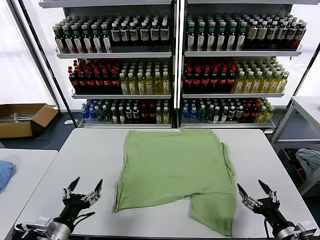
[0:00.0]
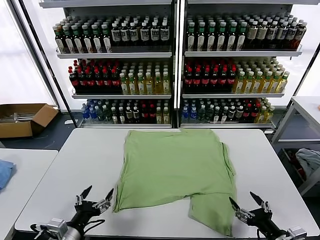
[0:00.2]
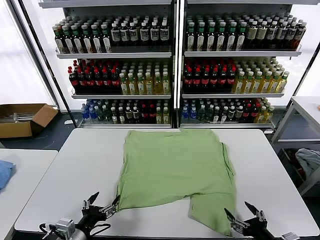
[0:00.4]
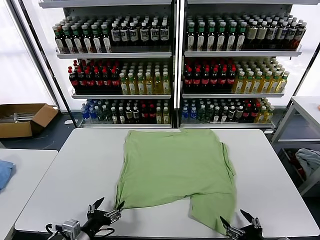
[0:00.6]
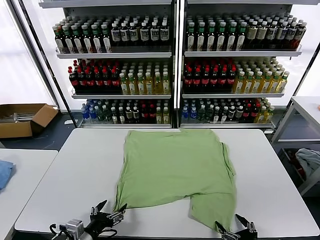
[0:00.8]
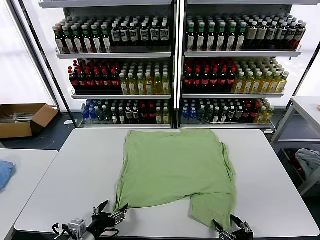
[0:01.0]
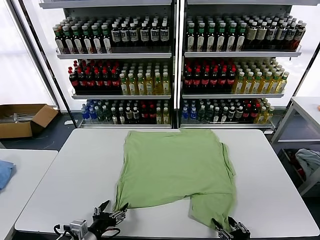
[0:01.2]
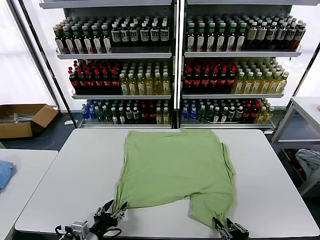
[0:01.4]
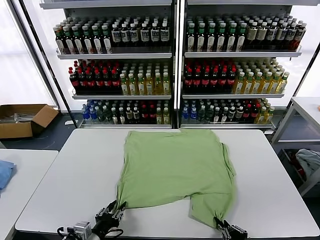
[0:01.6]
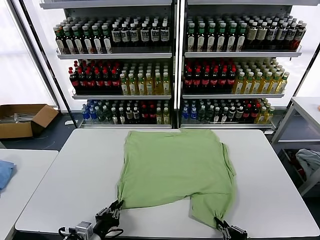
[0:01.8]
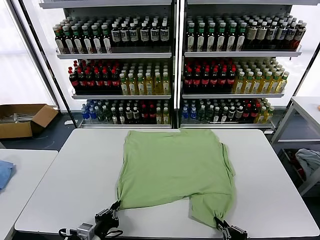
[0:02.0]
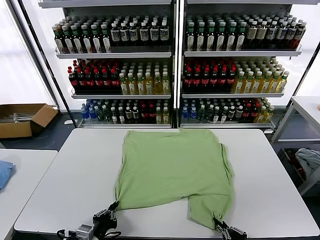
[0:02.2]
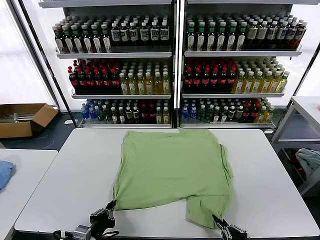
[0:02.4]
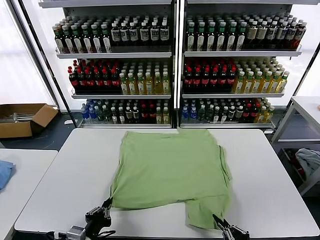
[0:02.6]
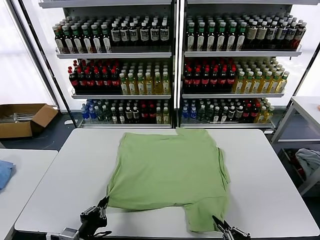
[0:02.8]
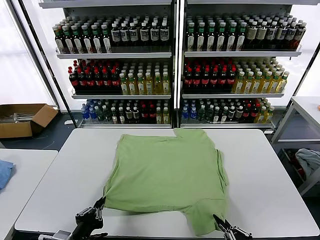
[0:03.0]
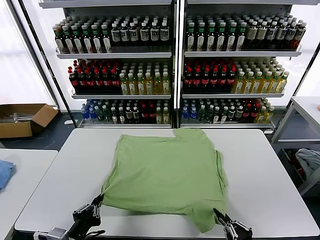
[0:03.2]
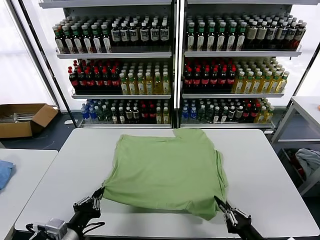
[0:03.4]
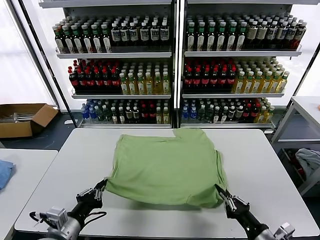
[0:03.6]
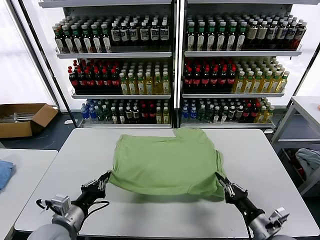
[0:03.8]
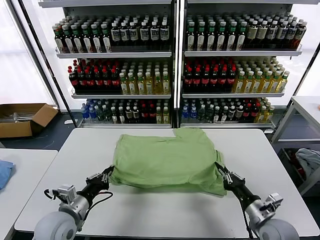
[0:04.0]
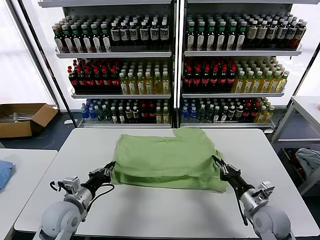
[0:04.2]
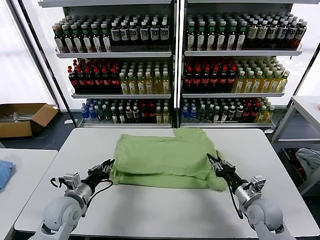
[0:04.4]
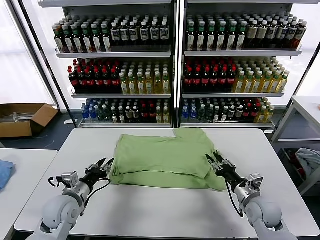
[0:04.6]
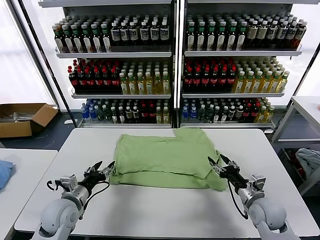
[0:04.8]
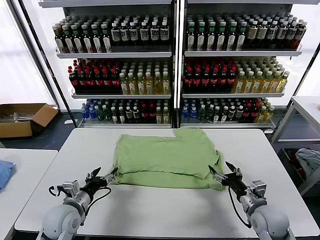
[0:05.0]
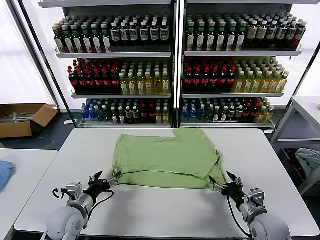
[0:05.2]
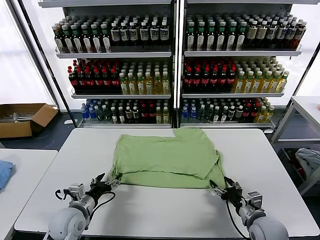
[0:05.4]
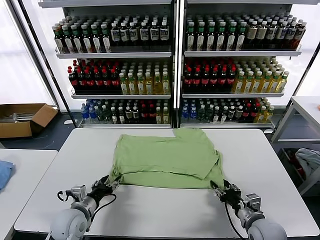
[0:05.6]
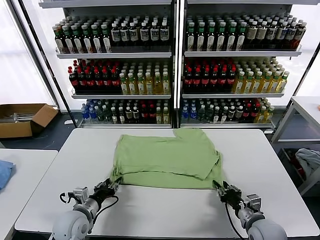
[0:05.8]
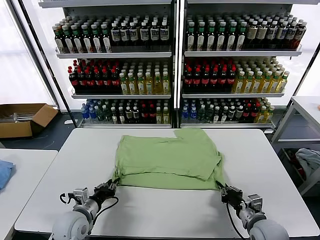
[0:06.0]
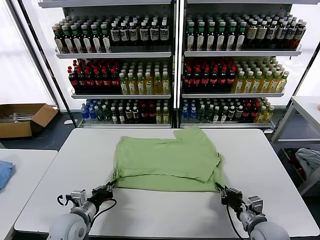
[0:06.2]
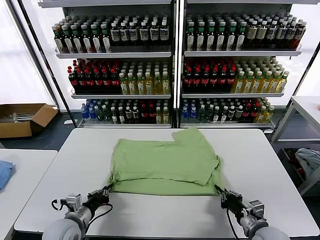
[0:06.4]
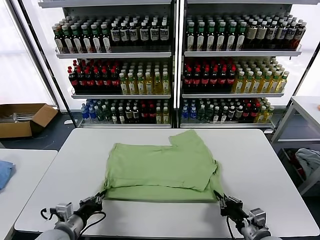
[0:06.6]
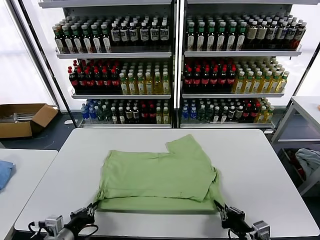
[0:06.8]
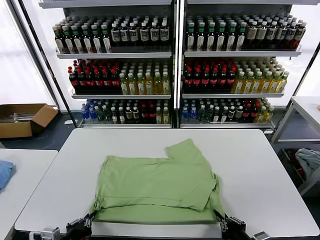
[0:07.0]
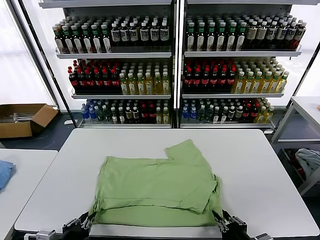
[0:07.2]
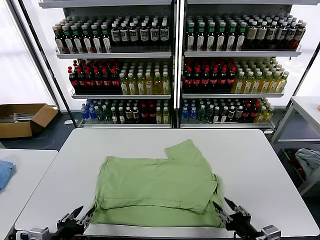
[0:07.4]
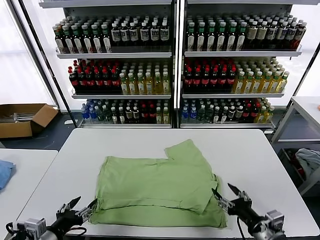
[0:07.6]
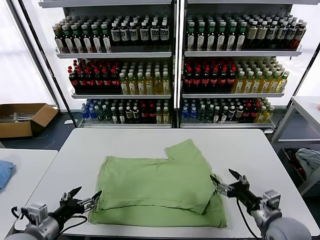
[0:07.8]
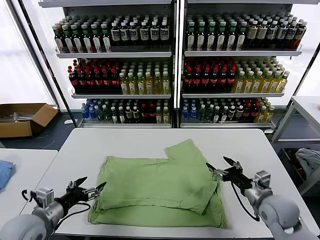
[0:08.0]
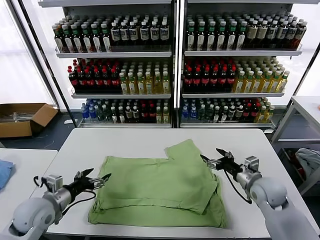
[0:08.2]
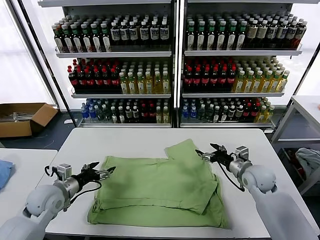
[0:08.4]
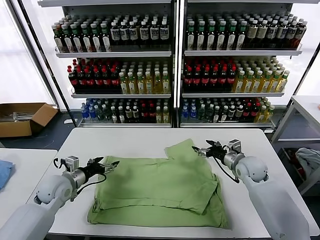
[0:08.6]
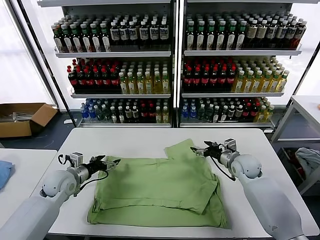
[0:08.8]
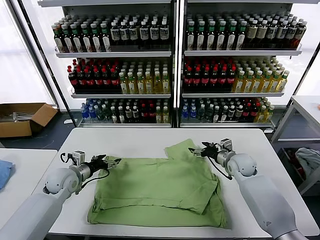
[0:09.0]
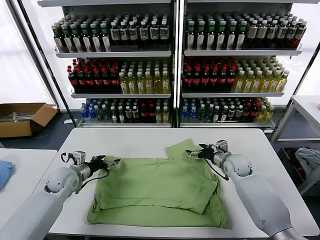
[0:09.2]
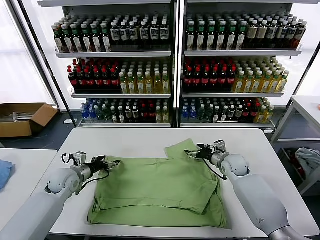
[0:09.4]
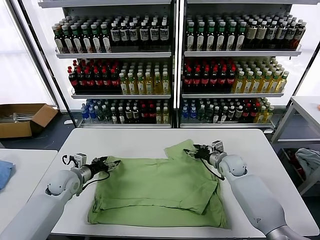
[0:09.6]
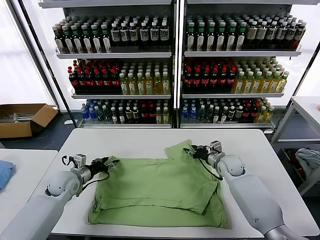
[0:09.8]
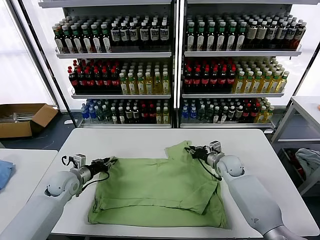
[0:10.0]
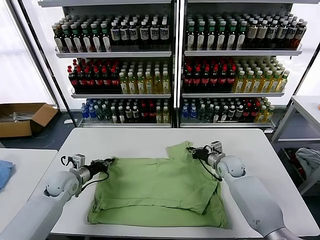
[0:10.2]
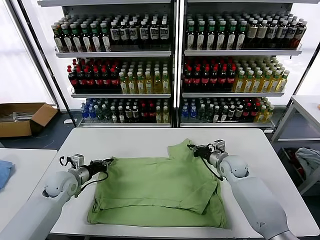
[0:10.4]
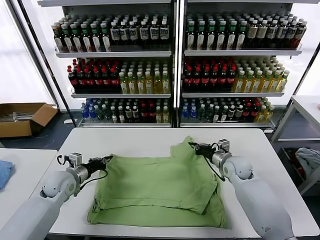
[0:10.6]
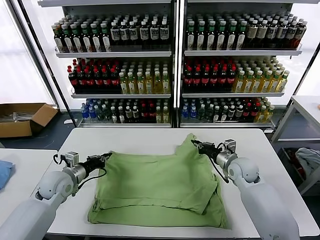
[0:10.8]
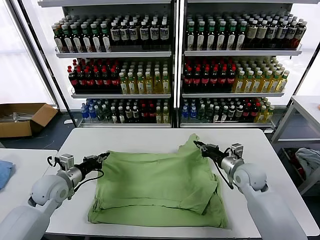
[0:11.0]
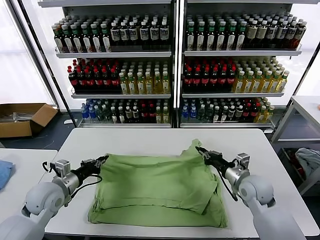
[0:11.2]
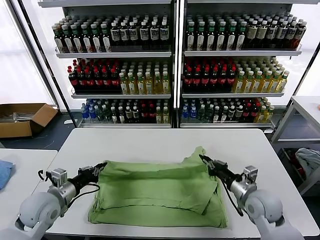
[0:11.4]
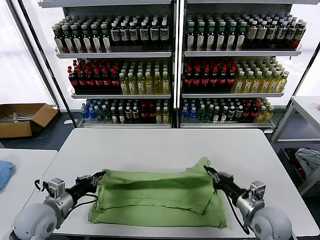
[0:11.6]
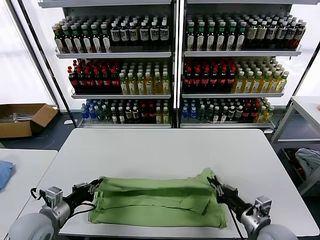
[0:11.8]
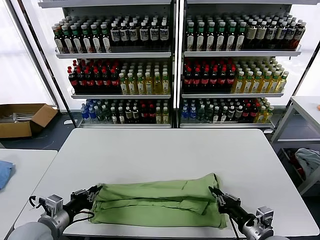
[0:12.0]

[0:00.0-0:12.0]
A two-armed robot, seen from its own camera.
Task of the whole recording: fold and organize the clothes.
Step, 0:00.0 to 0:02.0: use both grippers simultaneously to clamp the lower edge of the clothing fabric.
Step, 0:02.2 to 0:04.8: use both grippers to drag the lower edge of the fabric forward and fold it over the upper edge.
Step, 0:05.0 to 0:07.2: Drag the clothes downward with both gripper.
Step, 0:07.6 to 0:10.2: use both grippers simultaneously to clamp the upper edge of the clothing fabric.
0:01.6 to 0:03.0: The left gripper is displaced upward by some 5 cm, and closes its fingers.
0:03.0 to 0:04.4: The grippers both shift forward by some 20 cm. The right gripper opens its fingers.
0:04.4 to 0:06.0: The right gripper moves backward, about 5 cm, and opens, then closes once more; the left gripper changes place by approximately 5 cm, and opens, then closes once more.
0:06.0 to 0:07.6: The left gripper travels backward and upward by roughly 15 cm, and opens. The right gripper goes approximately 5 cm upward, travels backward and back again, some 10 cm each way, and opens its fingers.
0:07.6 to 0:09.0: Both grippers move forward, about 25 cm.
0:09.0 to 0:10.4: The right gripper closes its fingers; the left gripper closes up.
0:10.4 to 0:12.0: The right gripper is displaced backward by some 30 cm; the left gripper travels backward by about 20 cm.

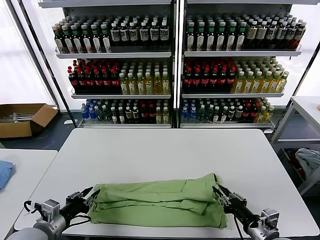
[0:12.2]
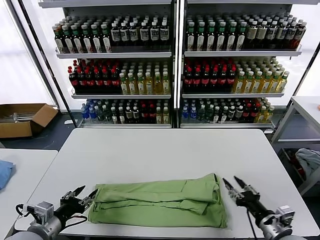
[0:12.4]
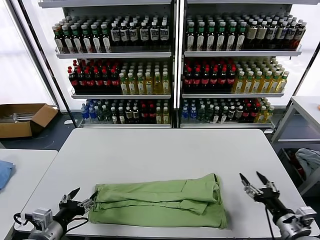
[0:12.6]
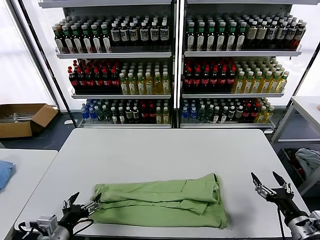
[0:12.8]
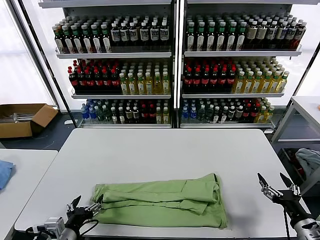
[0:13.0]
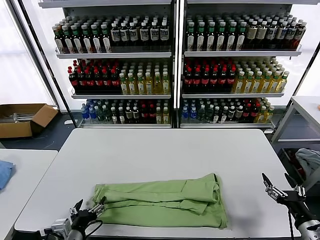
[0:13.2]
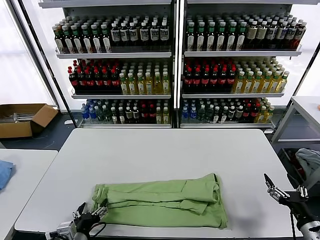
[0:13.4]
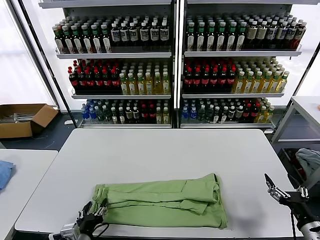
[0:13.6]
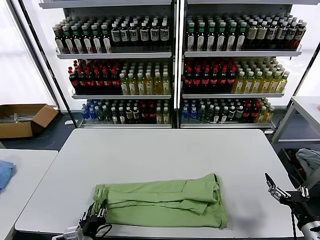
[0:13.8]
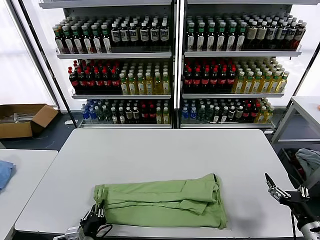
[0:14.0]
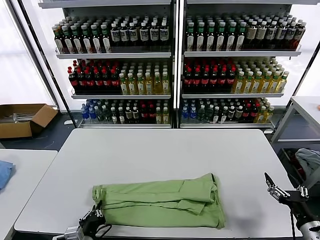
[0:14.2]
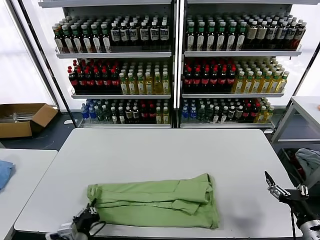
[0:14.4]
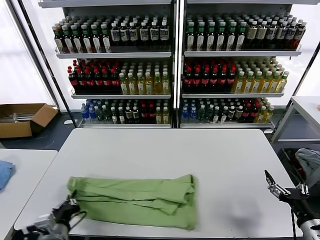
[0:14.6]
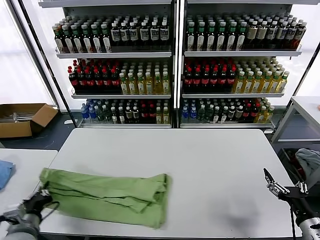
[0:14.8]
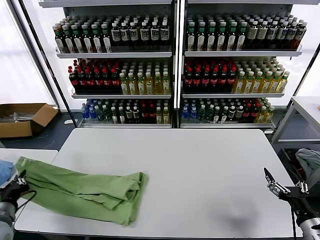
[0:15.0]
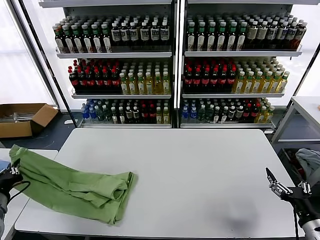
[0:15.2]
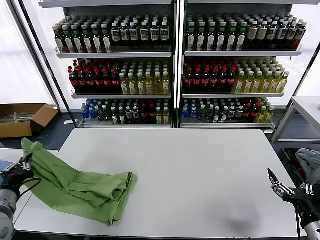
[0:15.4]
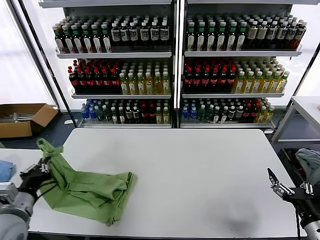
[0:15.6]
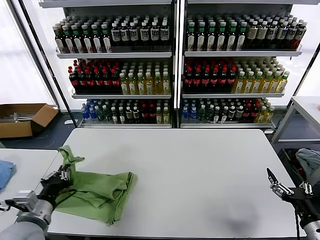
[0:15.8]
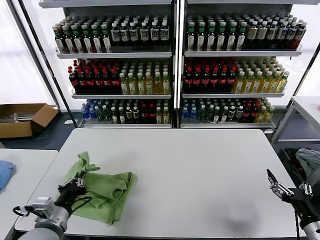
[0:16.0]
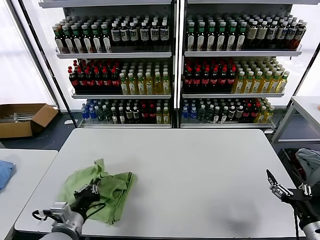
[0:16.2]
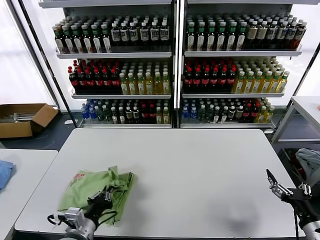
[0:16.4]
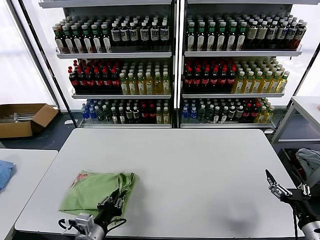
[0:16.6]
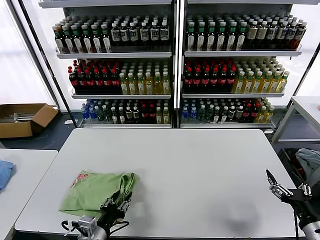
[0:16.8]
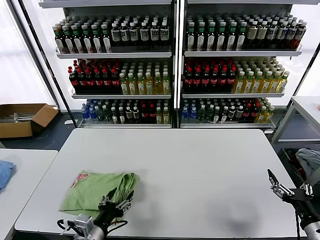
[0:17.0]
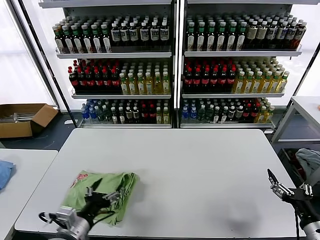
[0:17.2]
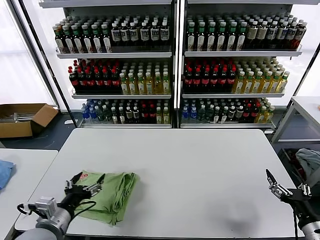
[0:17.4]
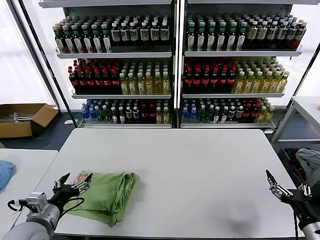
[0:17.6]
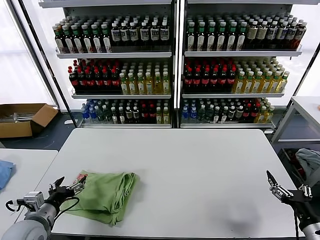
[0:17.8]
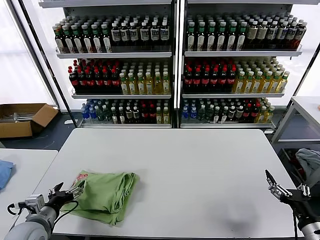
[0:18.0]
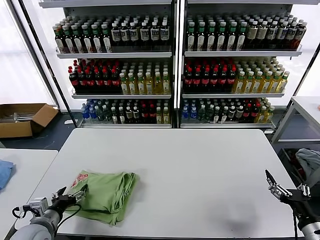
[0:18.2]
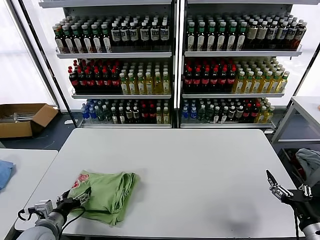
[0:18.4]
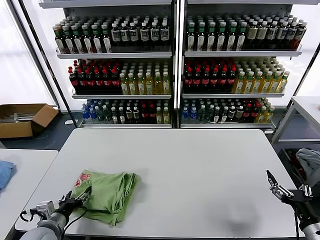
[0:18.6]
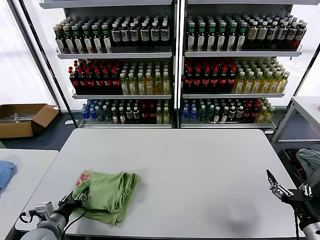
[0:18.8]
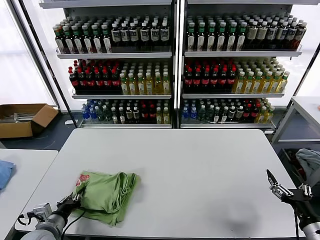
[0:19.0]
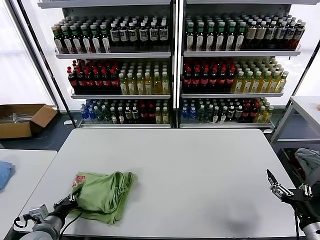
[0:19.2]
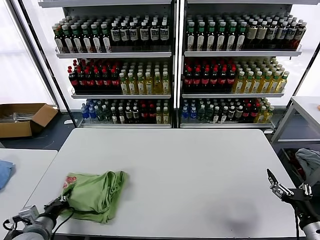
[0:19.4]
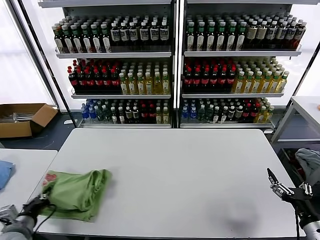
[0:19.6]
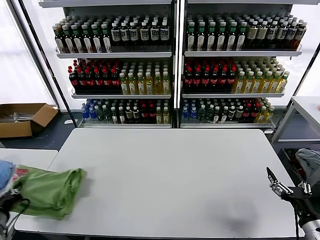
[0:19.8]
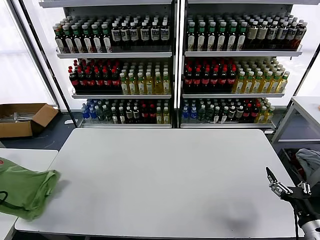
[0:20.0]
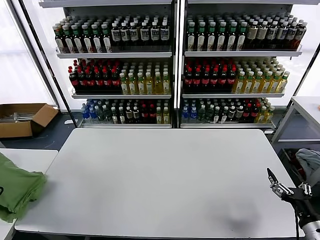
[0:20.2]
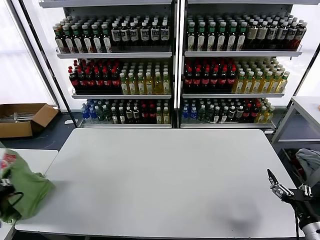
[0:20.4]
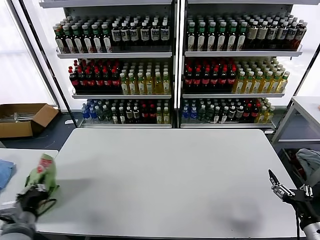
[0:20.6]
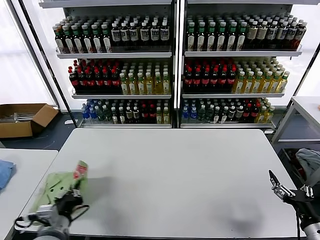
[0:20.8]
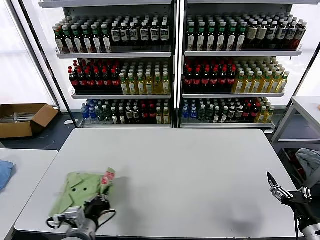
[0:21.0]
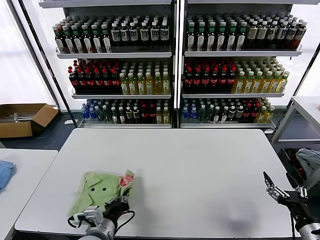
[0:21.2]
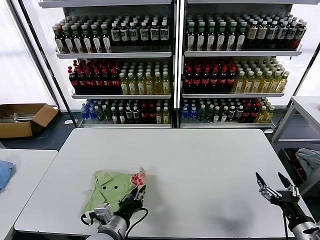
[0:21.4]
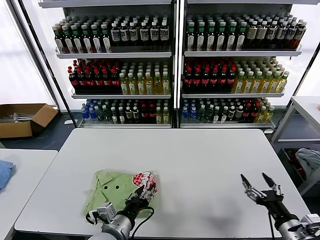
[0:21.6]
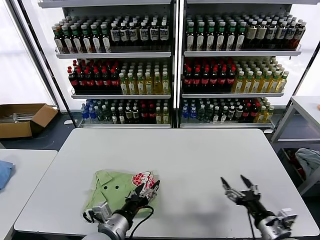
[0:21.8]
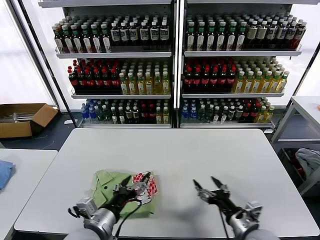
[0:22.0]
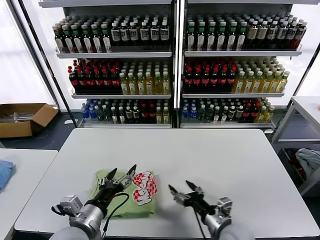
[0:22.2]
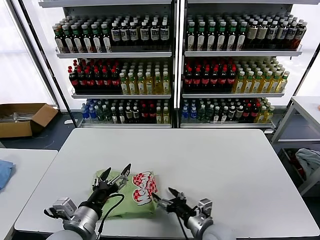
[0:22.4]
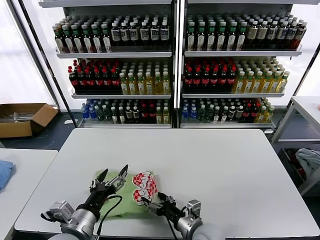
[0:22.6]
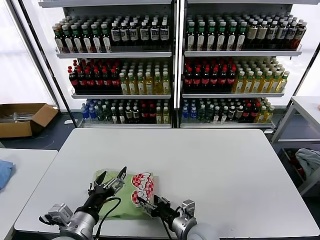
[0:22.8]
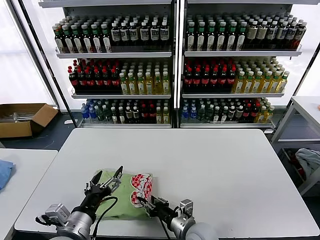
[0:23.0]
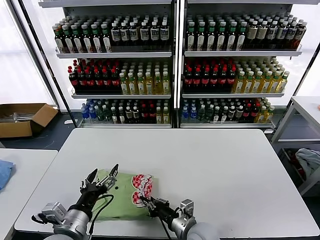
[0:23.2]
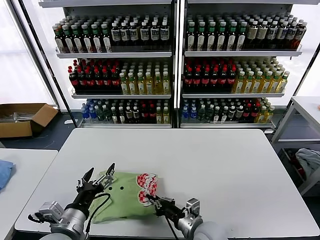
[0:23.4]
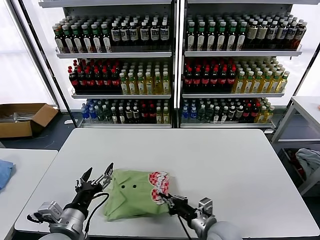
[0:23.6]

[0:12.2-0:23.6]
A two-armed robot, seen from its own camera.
Task of the whole recording: fold and organize the clothes.
Step, 0:12.4 to 0:14.2: use the left gripper to clamp the left edge of the fabric.
Step, 0:14.4 to 0:17.0: use the left gripper to drag the left edge of the fabric to the left and folds it over the right edge.
Step, 0:17.2 to 0:21.8: Flip the folded clothes over with left gripper.
0:12.2 to 0:13.6: The left gripper shifts about 10 cm to the right and downward, and opens its fingers; the right gripper is displaced to the right by roughly 10 cm, and opens up.
0:13.6 to 0:15.0: The left gripper heads to the left and upward, covering roughly 20 cm, and closes up.
0:15.0 to 0:16.4: The left gripper shifts about 20 cm to the right.
0:16.4 to 0:17.8: The left gripper travels to the left by roughly 10 cm, and opens.
0:17.8 to 0:19.4: The left gripper changes place by approximately 5 cm, and closes.
0:19.4 to 0:20.8: The left gripper travels to the right and upward by approximately 10 cm.
0:20.8 to 0:22.2: The right gripper moves to the left and forward, some 25 cm. Meanwhile the left gripper travels to the right by roughly 10 cm, and opens.
0:22.2 to 0:23.6: The right gripper reaches approximately 10 cm to the left, then returns, and closes.
